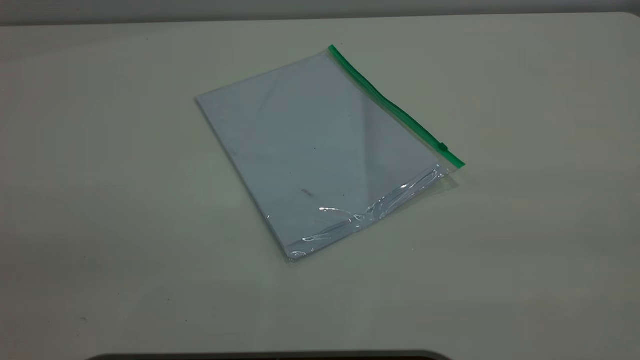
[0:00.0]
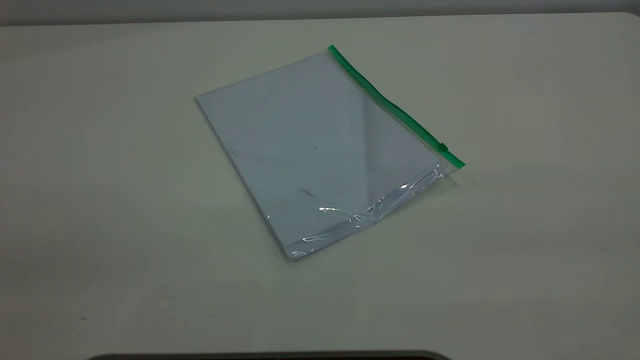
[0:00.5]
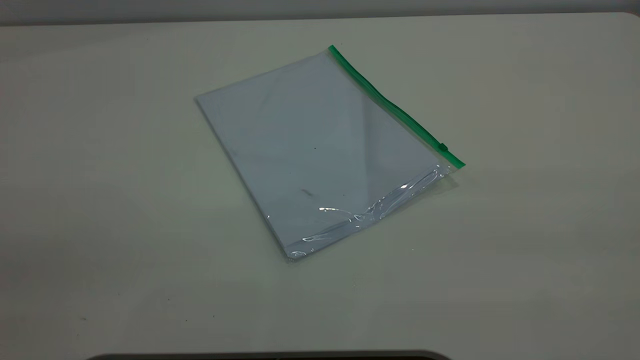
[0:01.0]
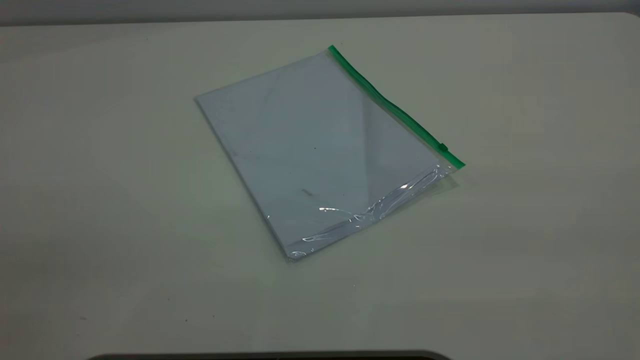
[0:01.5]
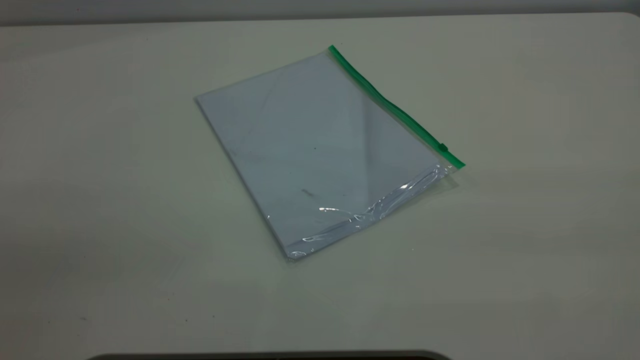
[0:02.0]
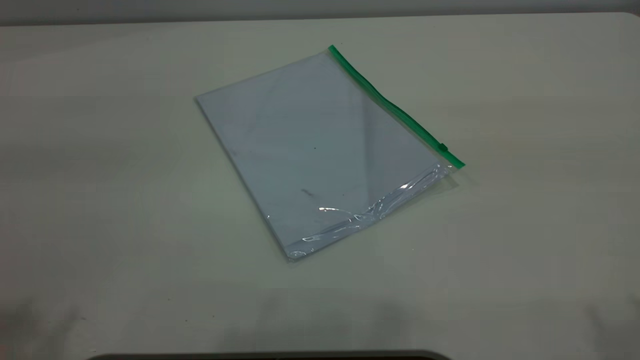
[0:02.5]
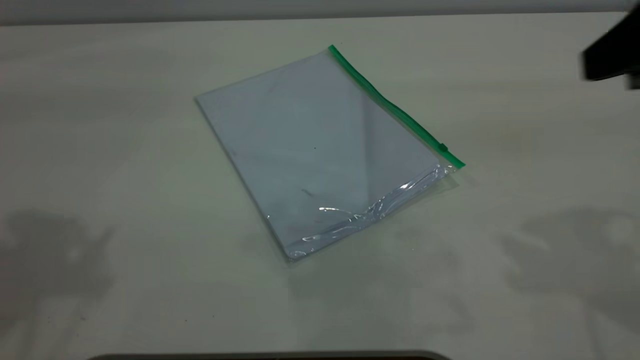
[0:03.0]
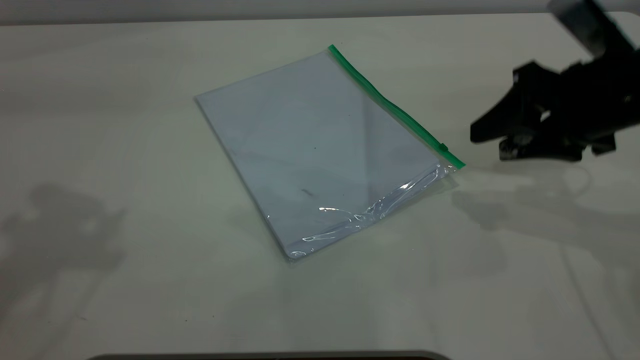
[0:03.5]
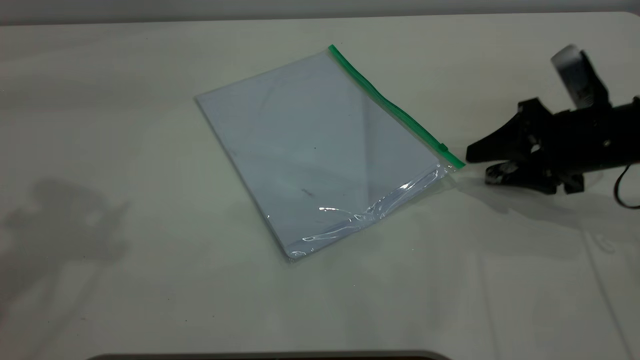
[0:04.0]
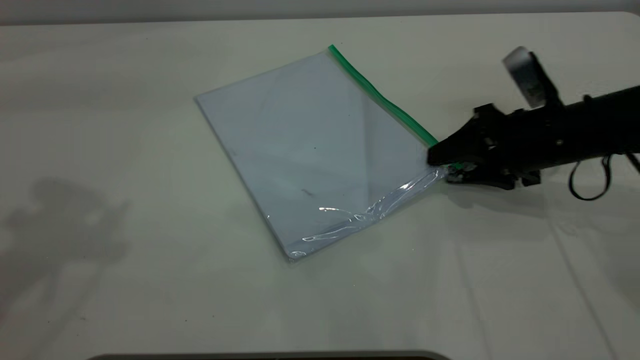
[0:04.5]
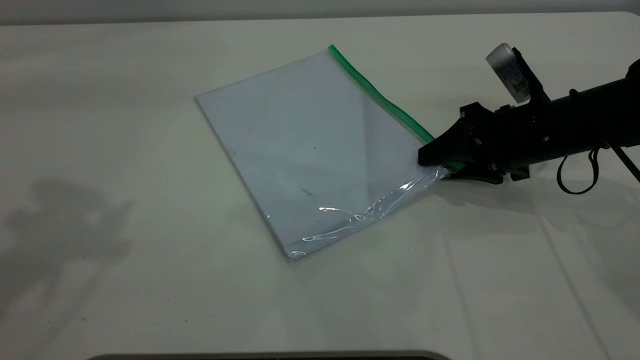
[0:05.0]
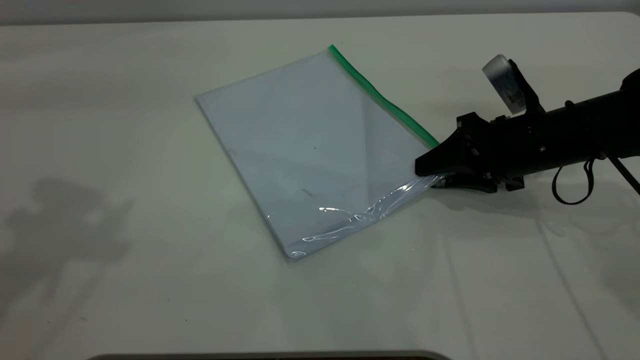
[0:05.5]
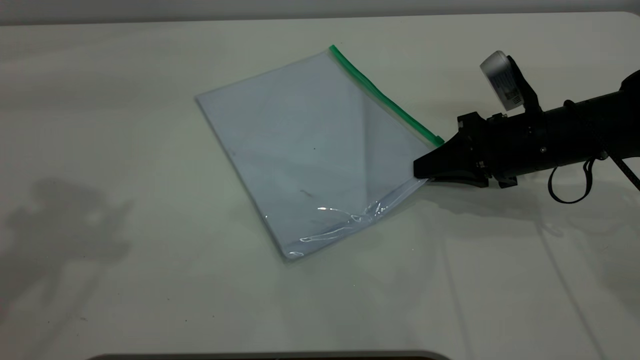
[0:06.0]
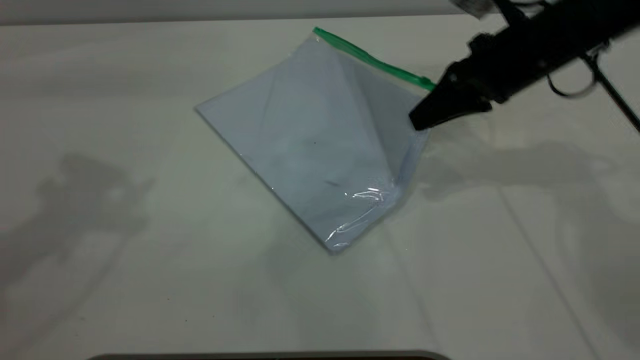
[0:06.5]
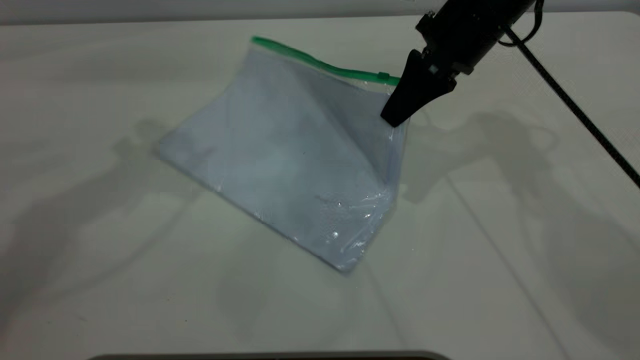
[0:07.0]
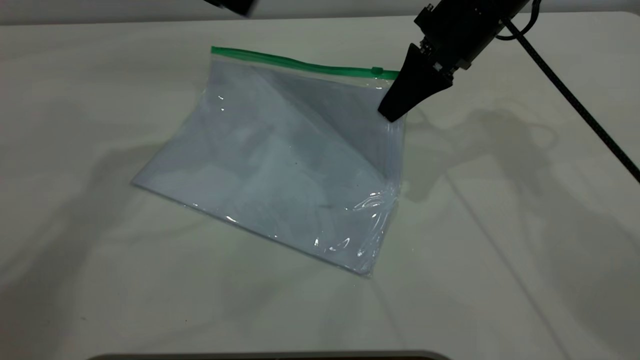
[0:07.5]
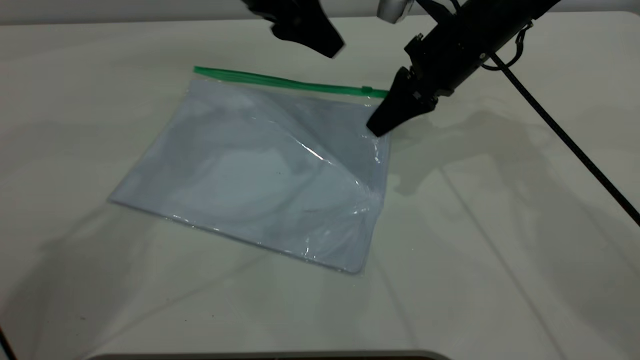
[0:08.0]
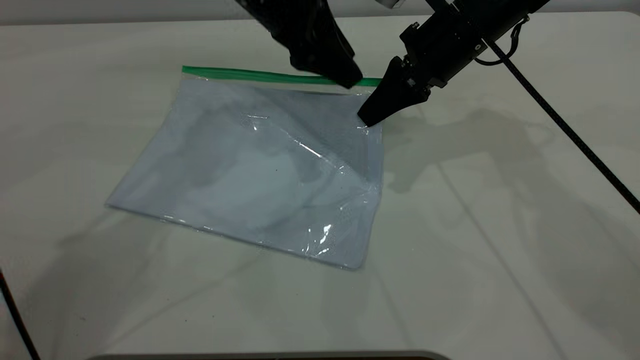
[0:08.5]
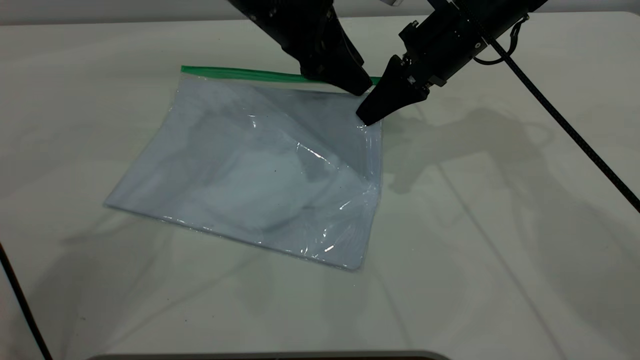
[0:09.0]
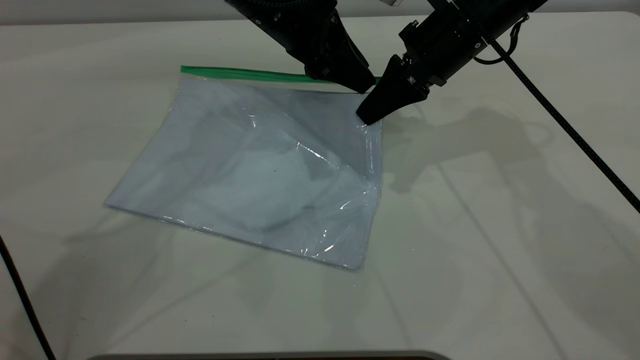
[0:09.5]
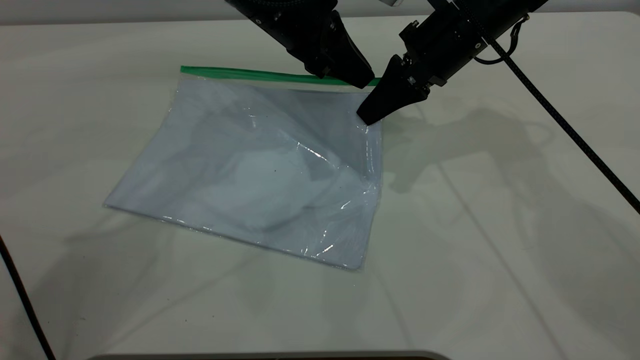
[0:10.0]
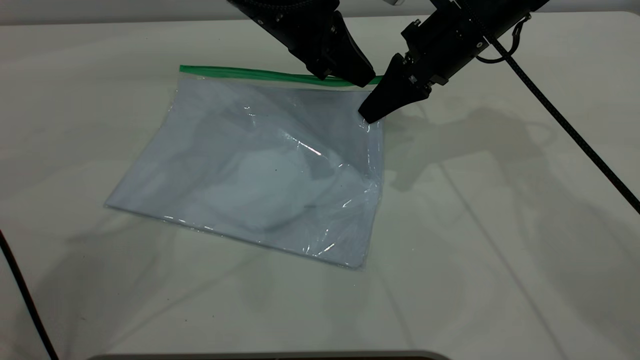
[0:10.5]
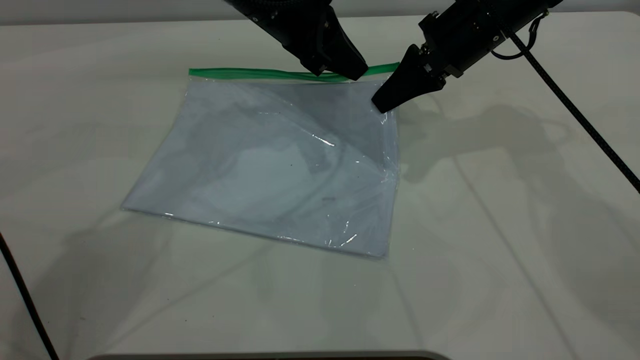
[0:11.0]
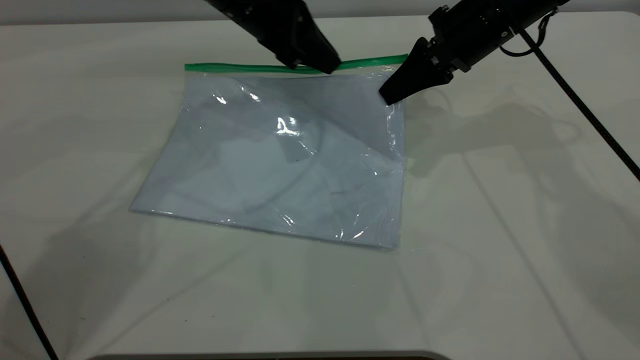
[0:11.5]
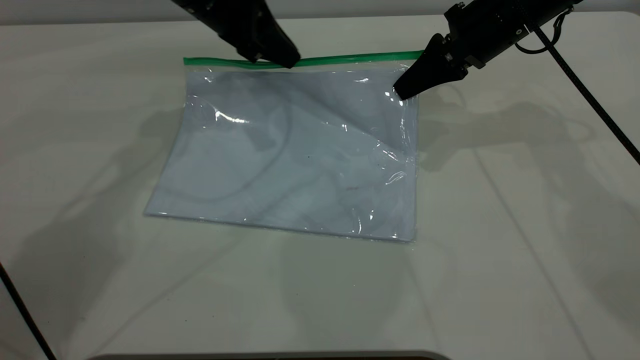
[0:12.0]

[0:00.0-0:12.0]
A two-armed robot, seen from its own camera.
Step, 0:00.0 to 0:06.0: Pick up the transparent plastic bag with the right gripper.
0:02.0 to 0:04.0: The right gripper goes about 50 cm forward and downward.
0:04.0 to 0:06.0: The right gripper travels to the left by some 5 cm, and closes.
0:06.0 to 0:08.0: The left gripper heads to the right, forward and downward, covering approximately 30 cm; the right gripper is displaced forward, to the left and upward by about 15 cm.
0:08.0 to 0:10.0: The left gripper closes its fingers.
0:10.0 to 0:12.0: The left gripper shifts about 10 cm to the left. Meanwhile the right gripper goes about 5 cm to the right.

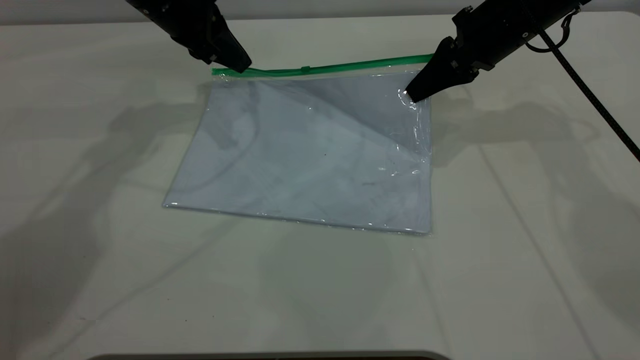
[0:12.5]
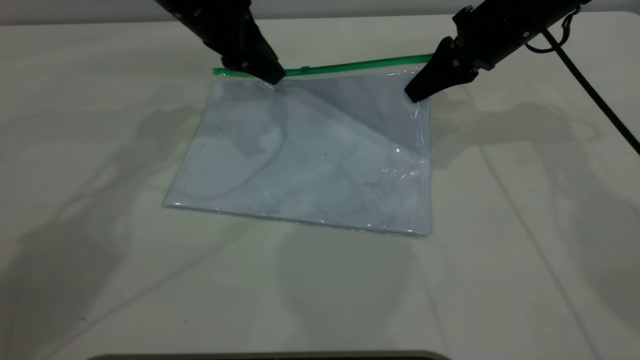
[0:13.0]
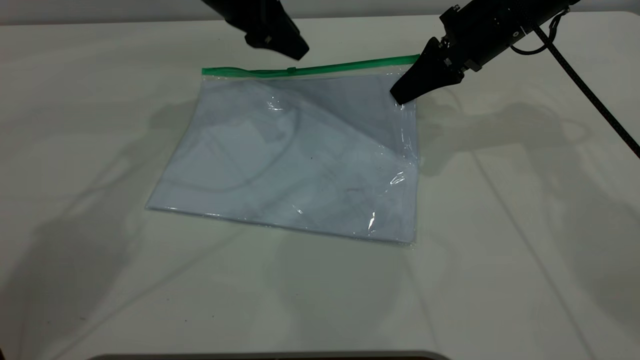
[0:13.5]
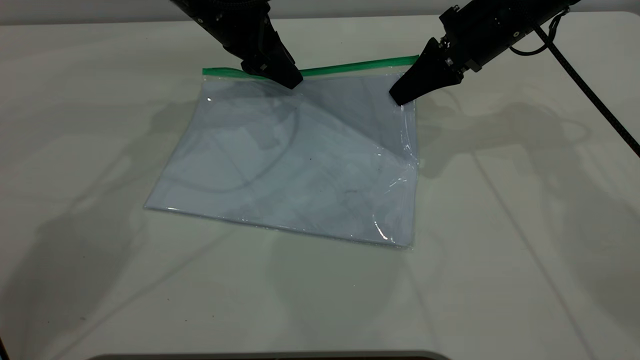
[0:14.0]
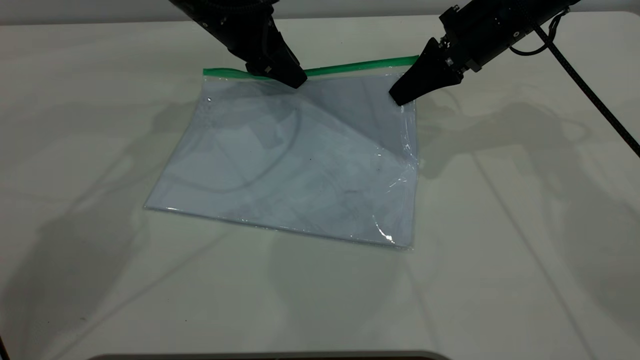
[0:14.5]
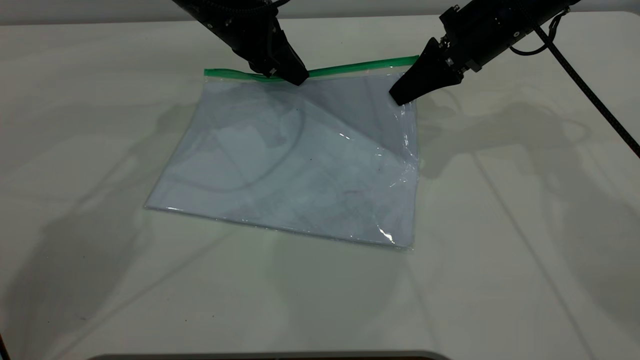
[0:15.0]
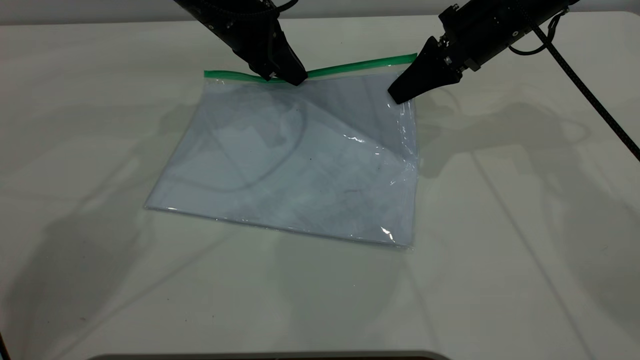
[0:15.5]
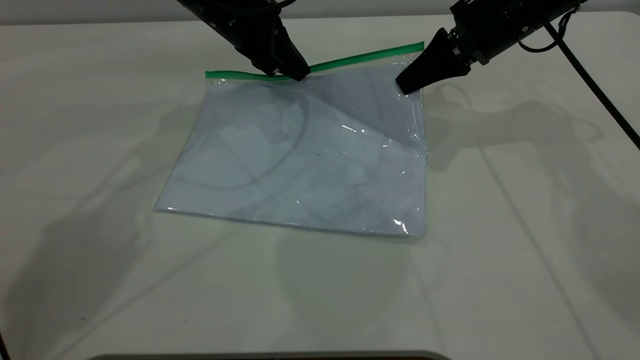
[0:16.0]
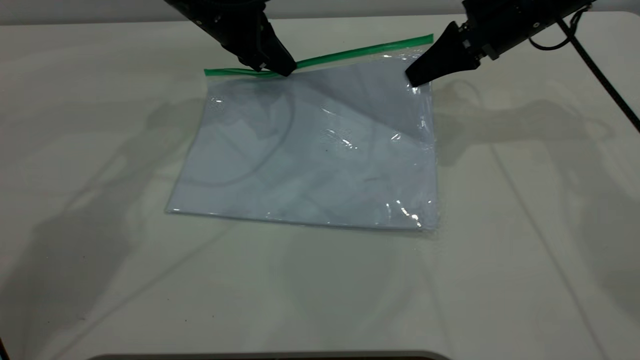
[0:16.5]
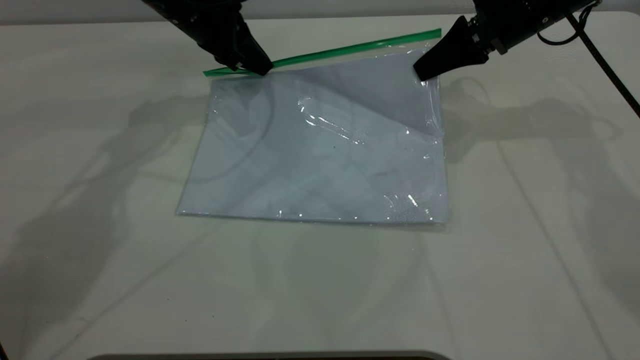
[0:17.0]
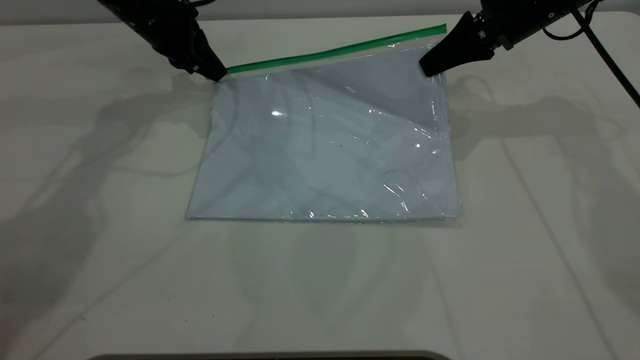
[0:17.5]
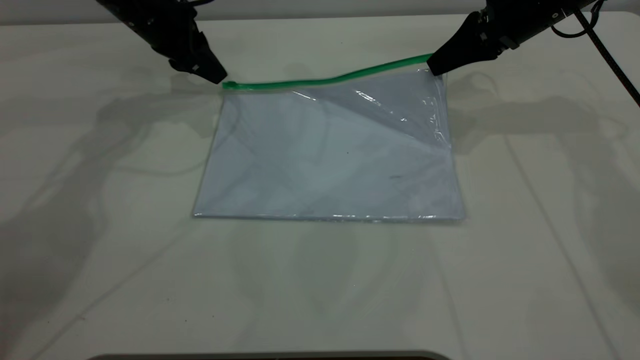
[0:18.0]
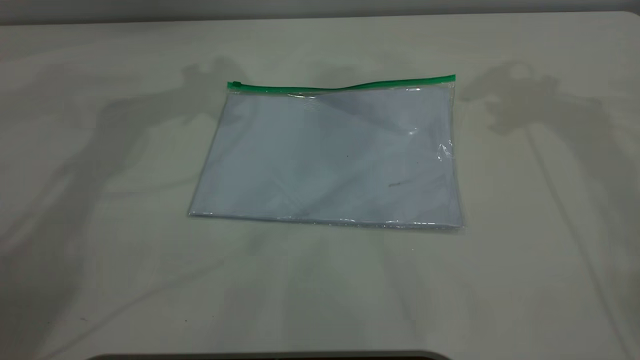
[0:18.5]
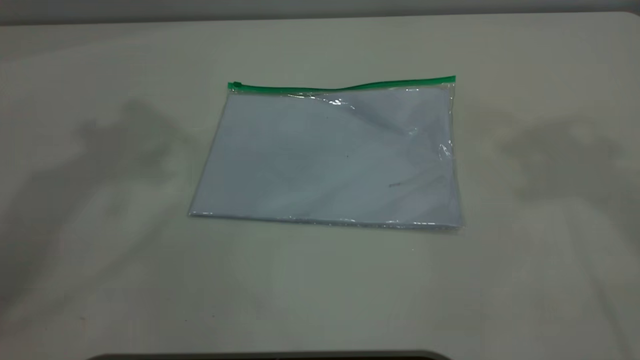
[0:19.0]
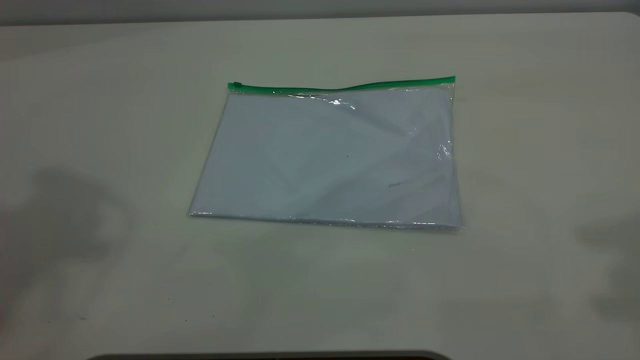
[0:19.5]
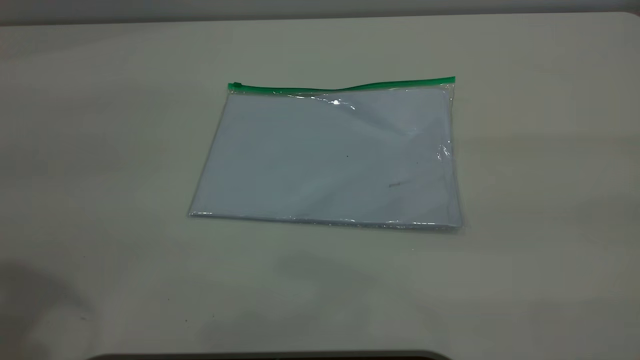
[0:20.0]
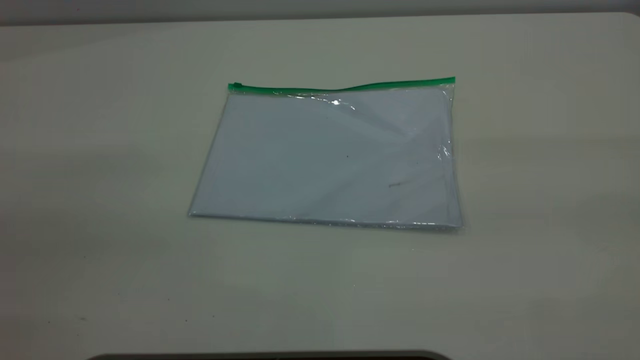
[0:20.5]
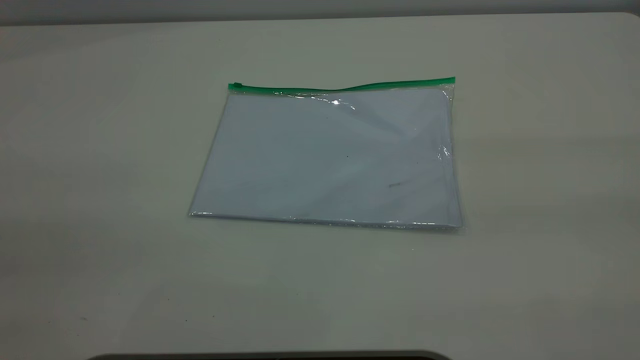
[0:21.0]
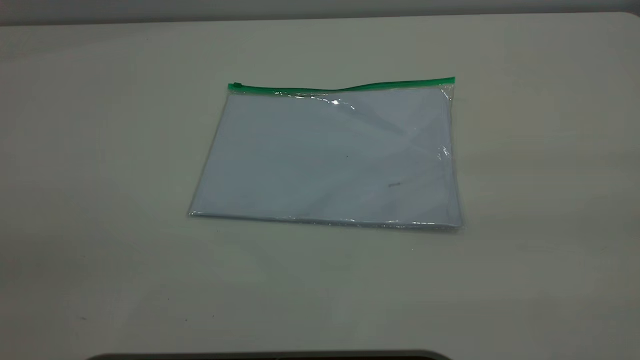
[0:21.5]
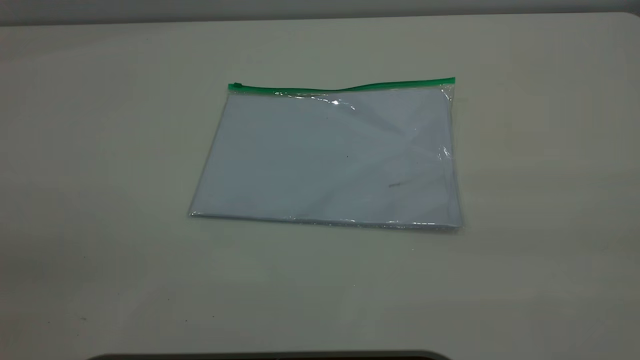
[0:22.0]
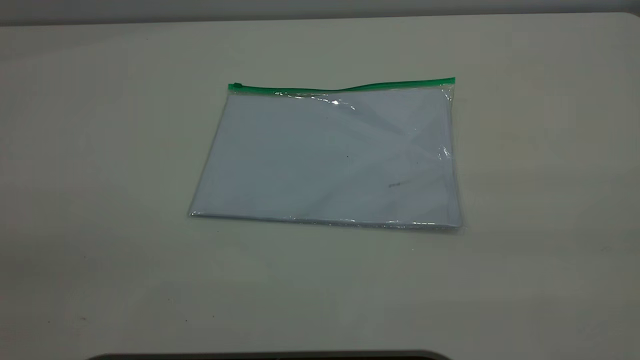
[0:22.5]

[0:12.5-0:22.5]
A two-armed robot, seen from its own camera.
Step, 0:12.5 to 0:17.5: Pulling up the zipper on the transparent plastic bag with the left gripper to close it.
0:12.5 to 0:14.5: The left gripper shifts approximately 5 cm to the right, and opens up.
0:14.5 to 0:16.5: The left gripper closes up.
0:16.5 to 0:18.5: Both grippers travel together upward, about 20 cm. The right gripper opens; the left gripper opens.
